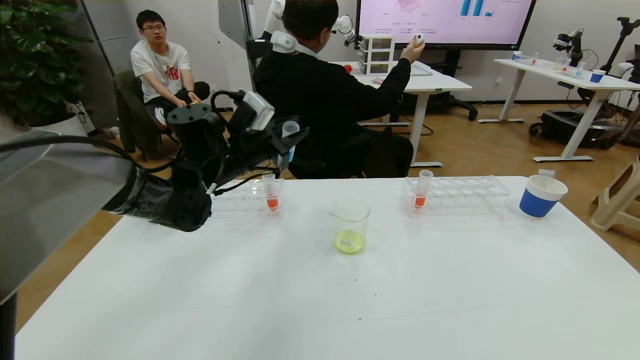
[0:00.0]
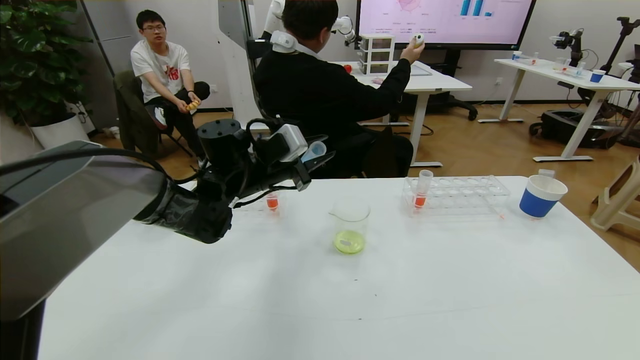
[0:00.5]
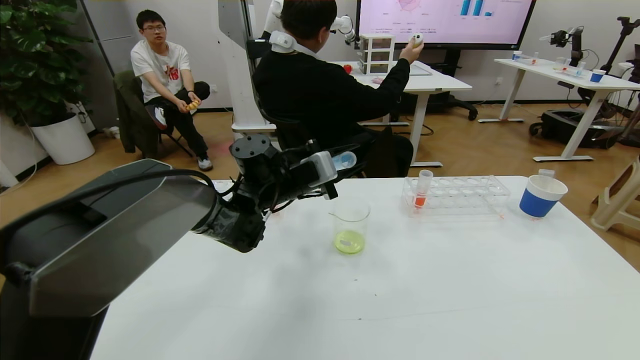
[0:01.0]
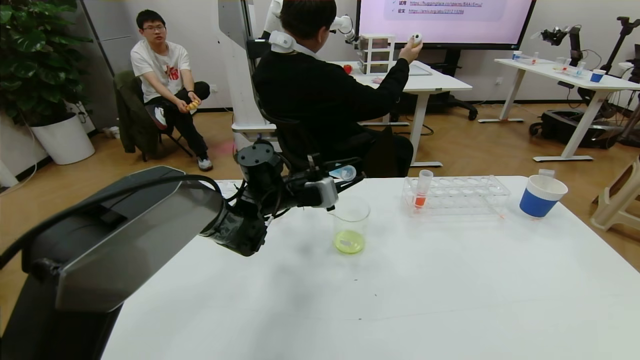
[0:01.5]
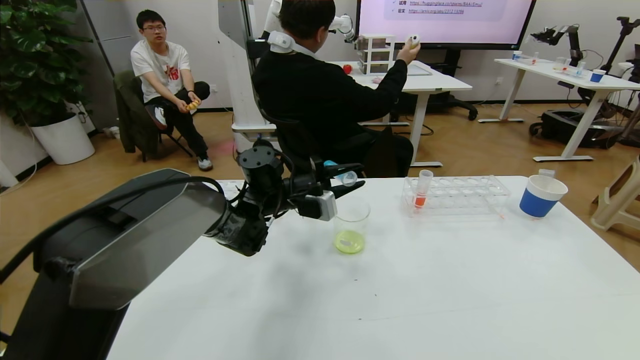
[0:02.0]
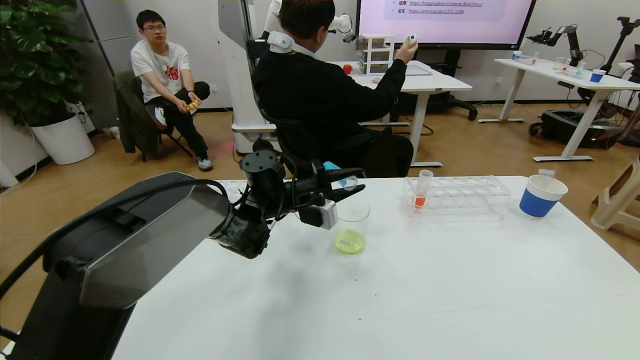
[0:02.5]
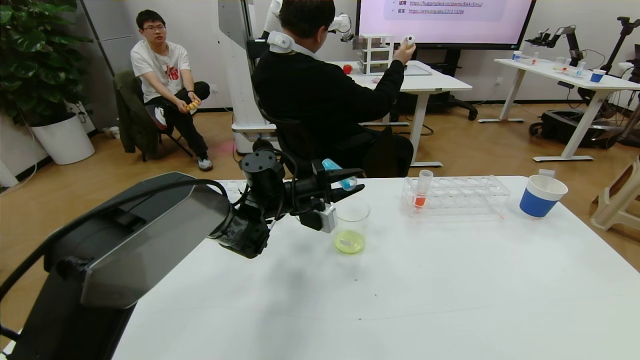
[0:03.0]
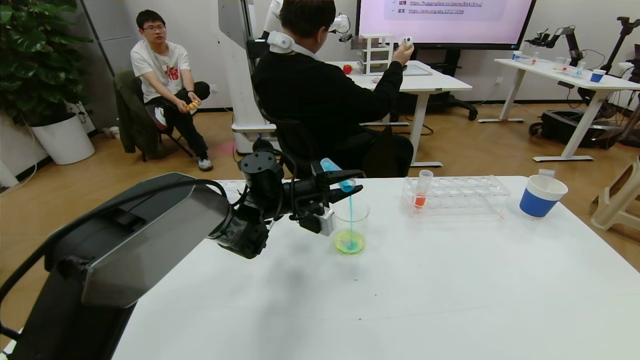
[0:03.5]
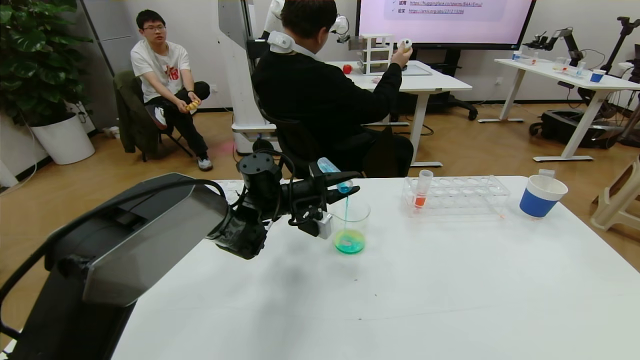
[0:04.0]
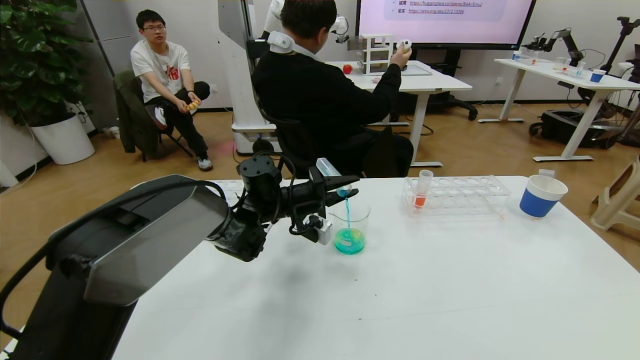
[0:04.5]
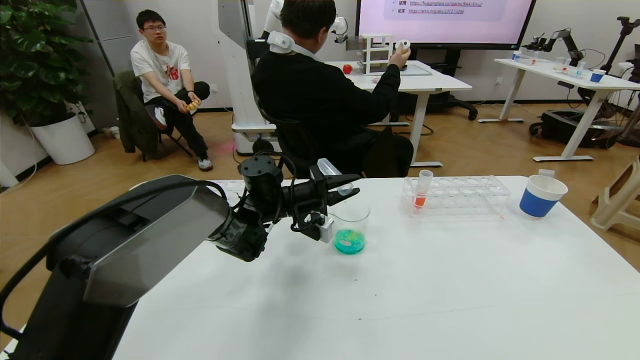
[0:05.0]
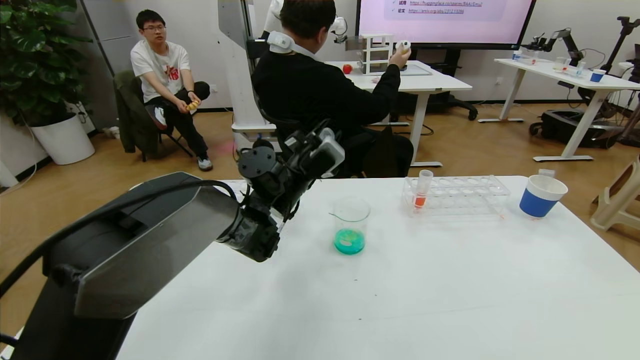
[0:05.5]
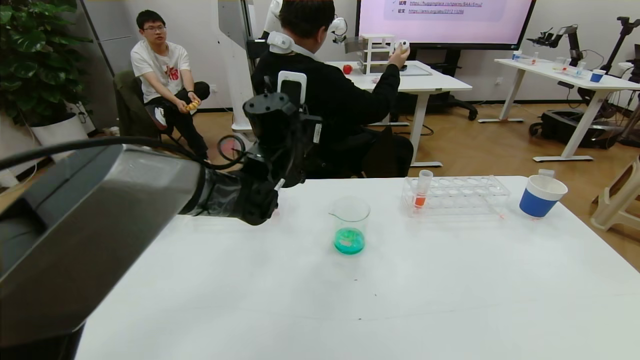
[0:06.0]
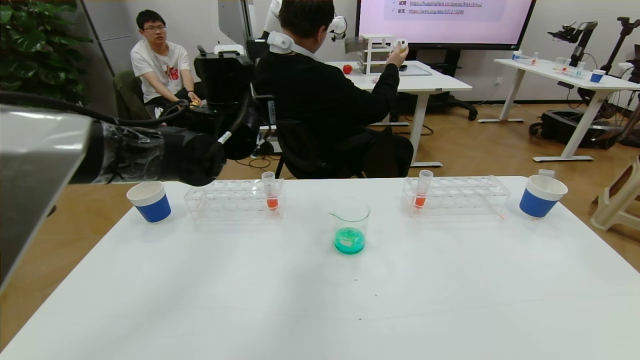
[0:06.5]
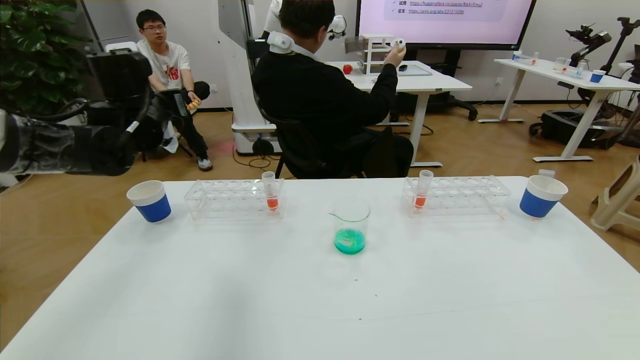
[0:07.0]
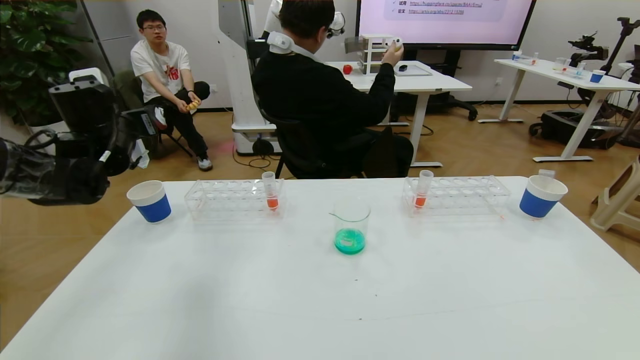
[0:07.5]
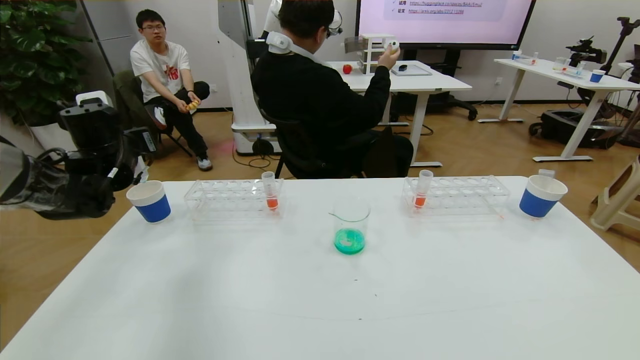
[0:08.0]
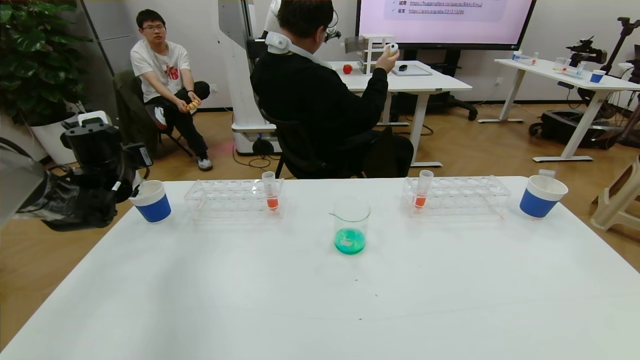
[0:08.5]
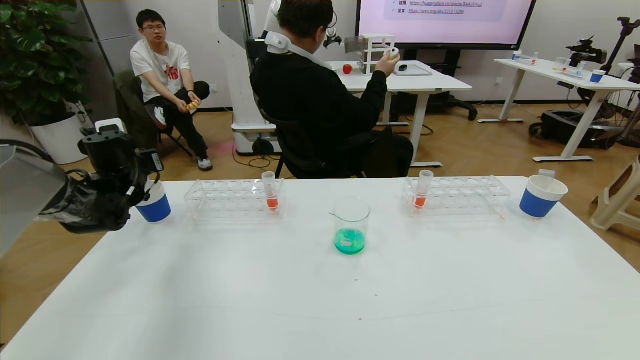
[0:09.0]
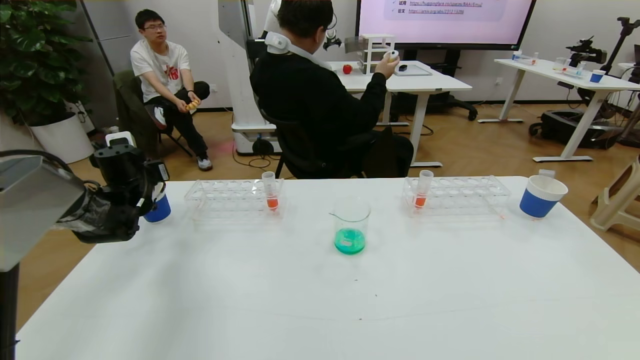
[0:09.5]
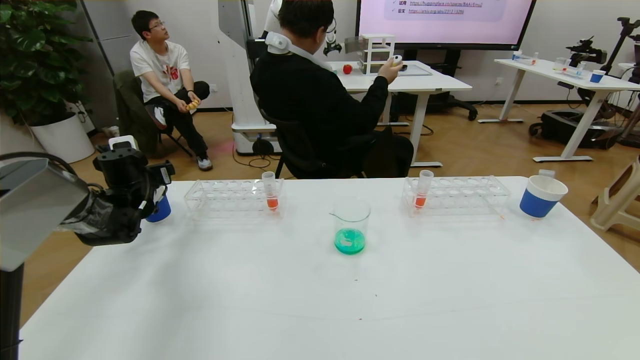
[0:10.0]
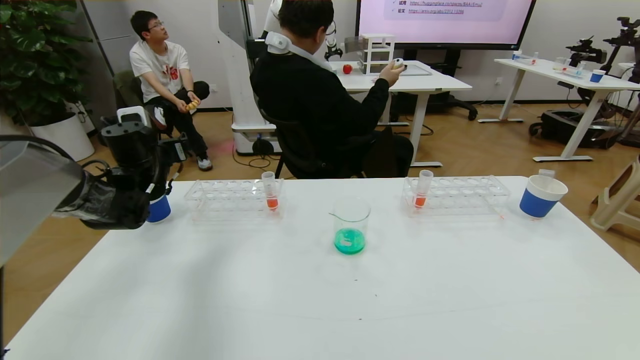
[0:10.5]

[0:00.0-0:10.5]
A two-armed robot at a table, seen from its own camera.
Task of the whole recording: pick up the test tube with yellow pigment and the test tube with blue pigment by grippers and pour them into the beaker.
0:00.0 to 0:02.0: The left gripper shifts roughly 10 cm to the right and downward.
0:02.0 to 0:04.0: The grippers make only small movements.
0:04.0 to 0:06.5: The left gripper heads upward, covering about 15 cm.
0:06.5 to 0:08.5: The left gripper heads to the left and downward, covering some 30 cm.
0:08.5 to 0:10.5: The left gripper moves to the right, roughly 5 cm, and opens up.

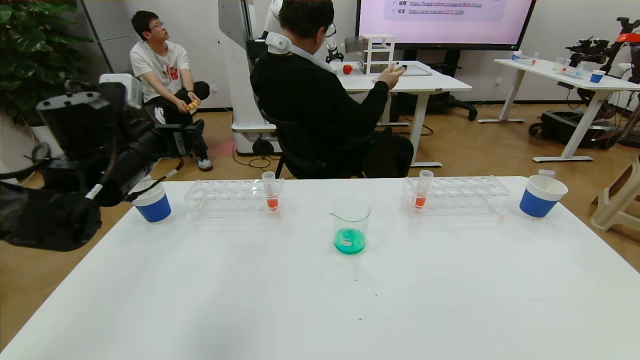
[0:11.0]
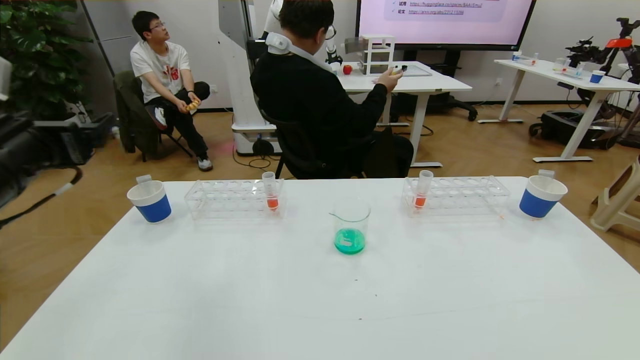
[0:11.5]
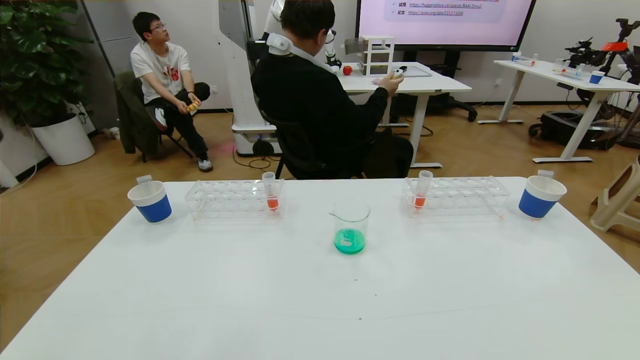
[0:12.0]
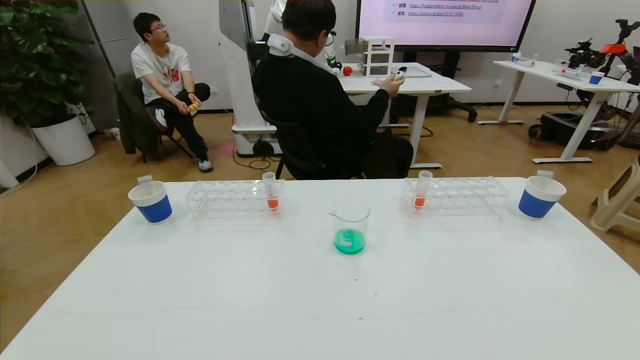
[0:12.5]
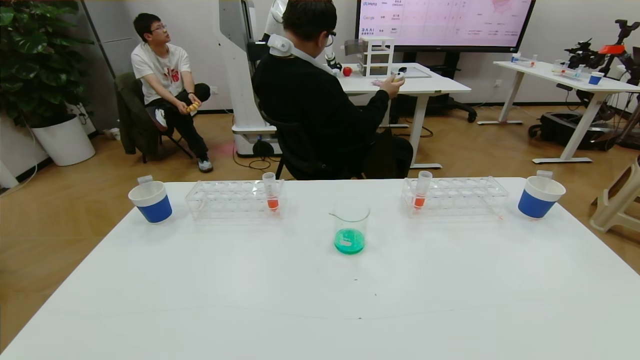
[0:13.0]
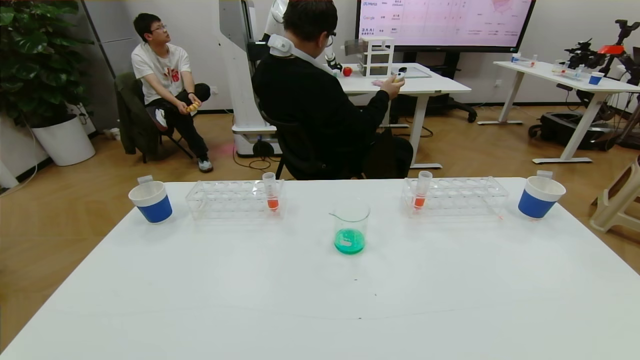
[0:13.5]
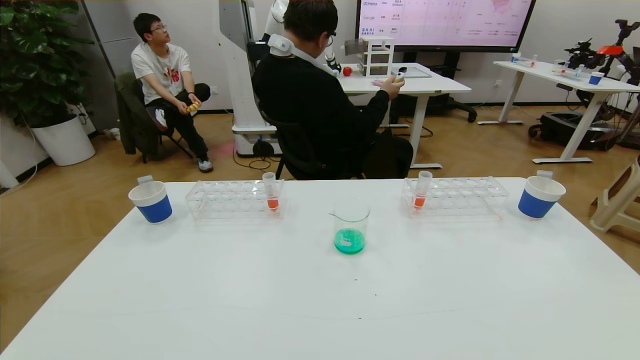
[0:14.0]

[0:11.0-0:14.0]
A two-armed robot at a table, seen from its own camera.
Task of the whole recording: pick up the test tube with yellow pigment and the test tube with blue pigment by grippers and pour them into the beaker.
0:11.0 to 0:12.5: The left gripper is displaced backward by roughly 35 cm.
